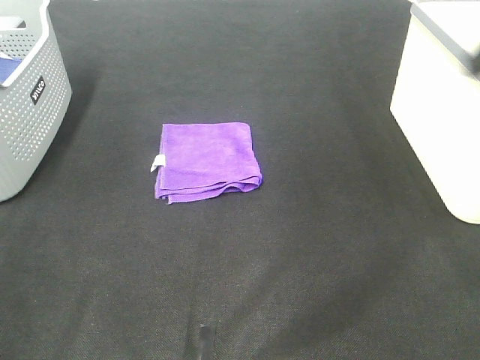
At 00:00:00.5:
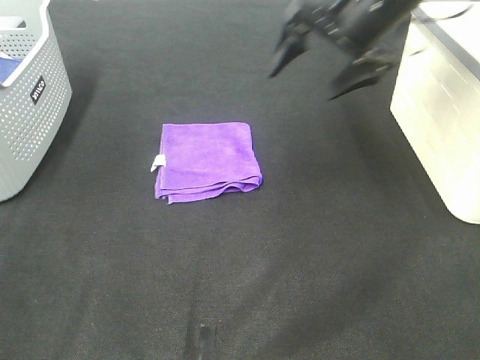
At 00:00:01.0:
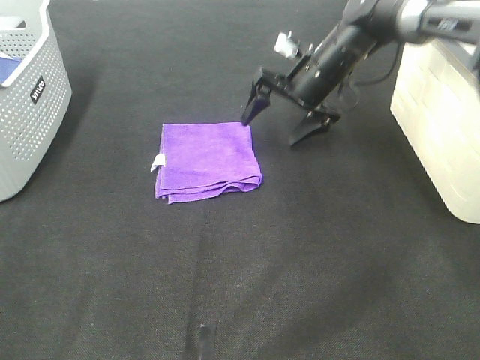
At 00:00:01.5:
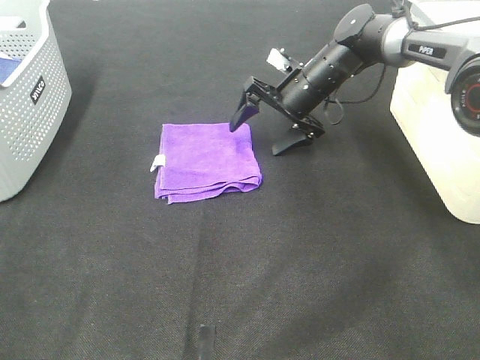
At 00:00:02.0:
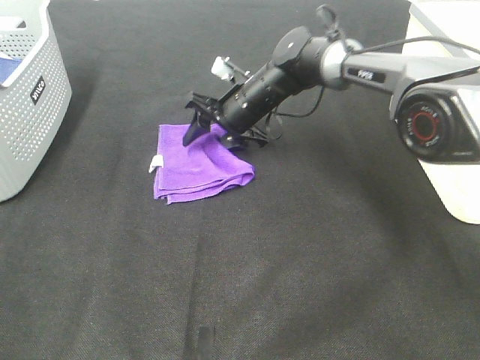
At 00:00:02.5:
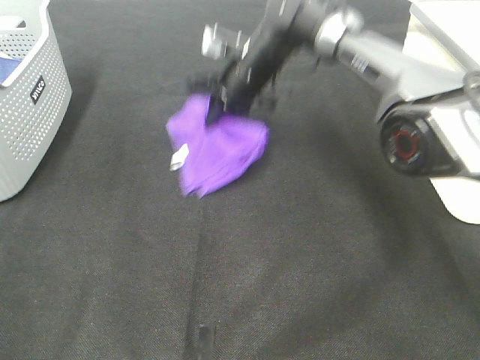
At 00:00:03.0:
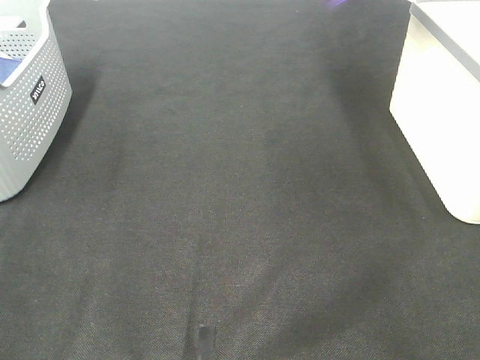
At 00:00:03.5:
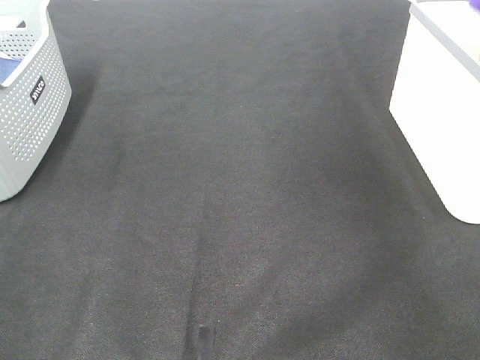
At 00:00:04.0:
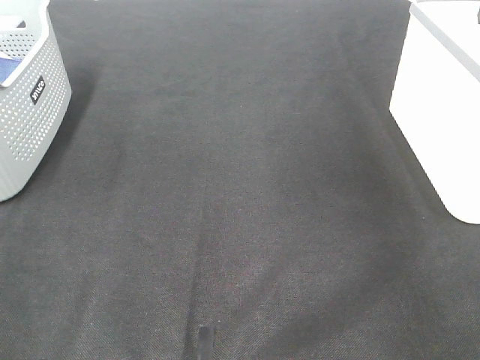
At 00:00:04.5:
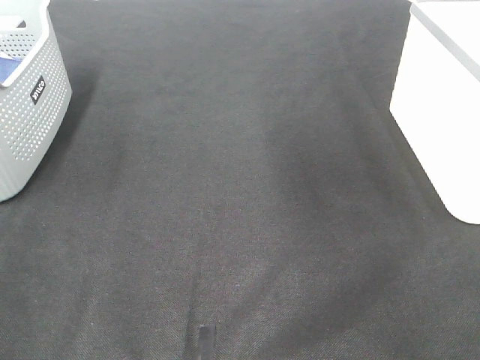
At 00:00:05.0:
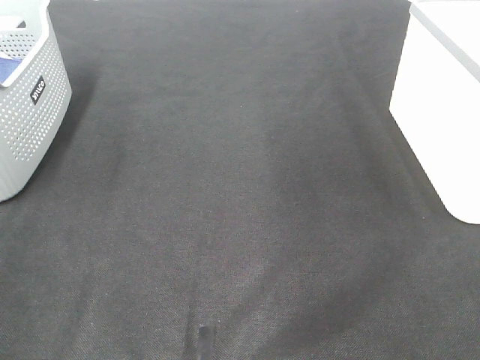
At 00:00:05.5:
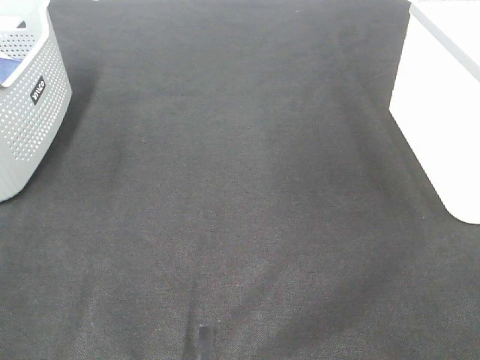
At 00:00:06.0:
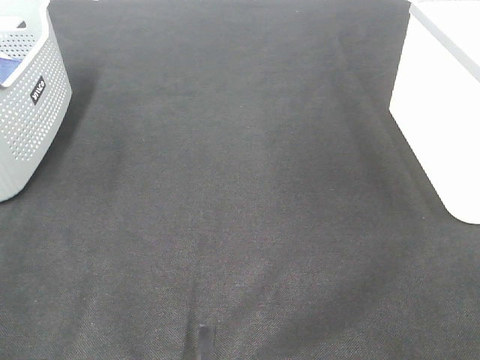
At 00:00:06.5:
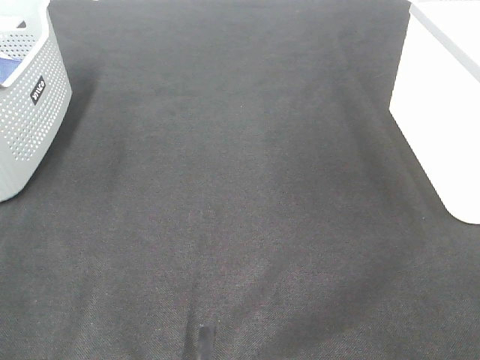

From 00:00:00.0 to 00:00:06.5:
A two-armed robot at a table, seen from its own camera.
Step, from 00:00:00.0 to 00:00:02.0: Right hand: grab the folded purple towel.
Step, from 00:00:02.5 to 00:00:03.5: Right hand: place the purple towel in right basket.
From 00:00:00.0 to 00:00:02.0: The right gripper is displaced downward, to the left and forward by approximately 40 cm, and closes up.
From 00:00:02.0 to 00:00:04.5: The right gripper heads upward and to the right, covering about 40 cm, and opens up.

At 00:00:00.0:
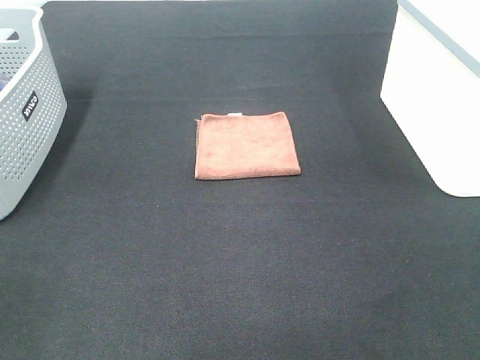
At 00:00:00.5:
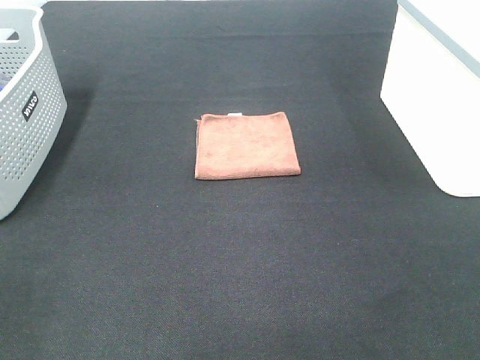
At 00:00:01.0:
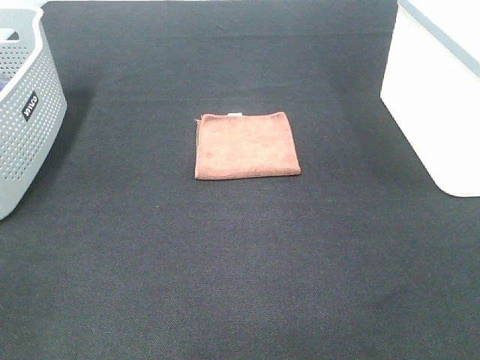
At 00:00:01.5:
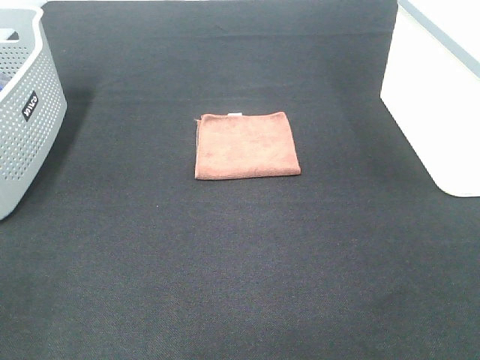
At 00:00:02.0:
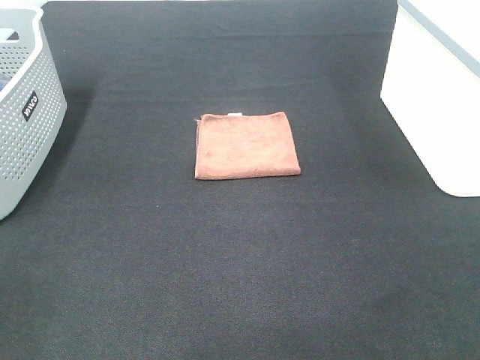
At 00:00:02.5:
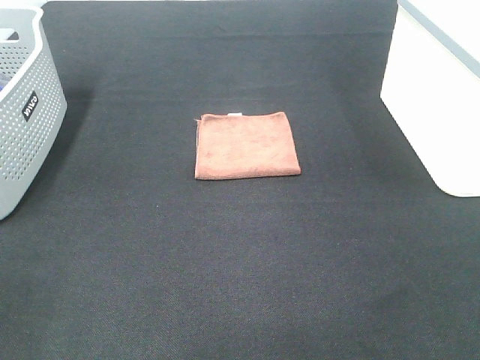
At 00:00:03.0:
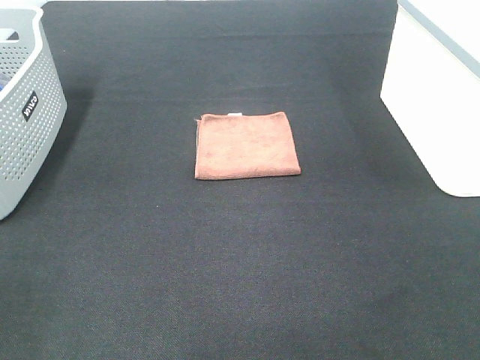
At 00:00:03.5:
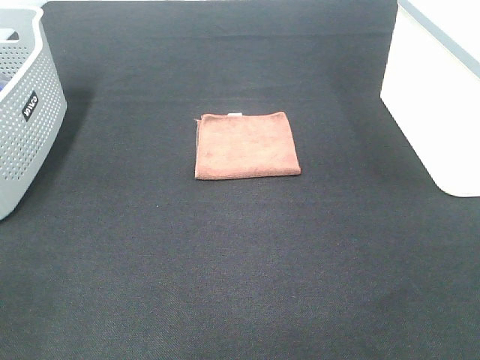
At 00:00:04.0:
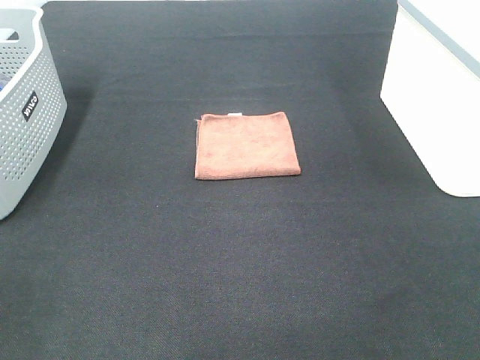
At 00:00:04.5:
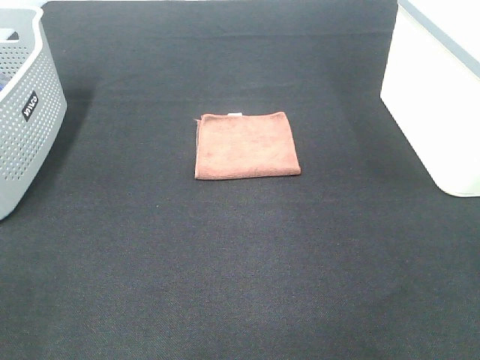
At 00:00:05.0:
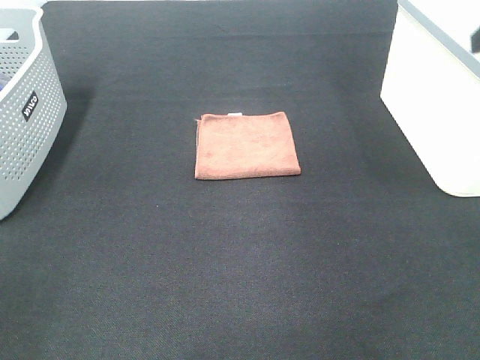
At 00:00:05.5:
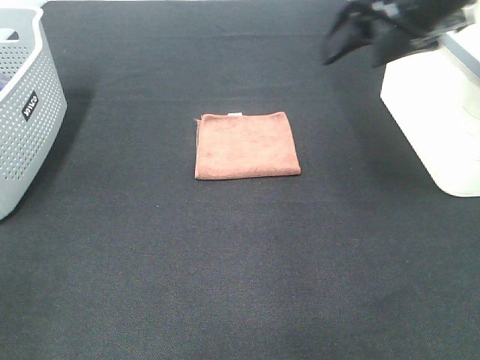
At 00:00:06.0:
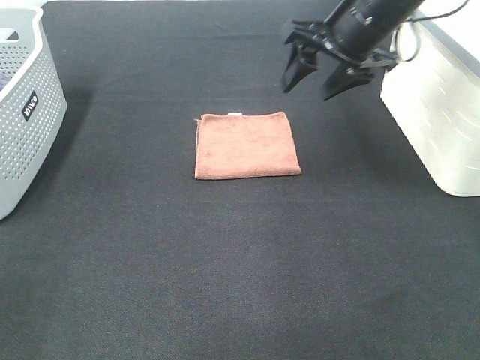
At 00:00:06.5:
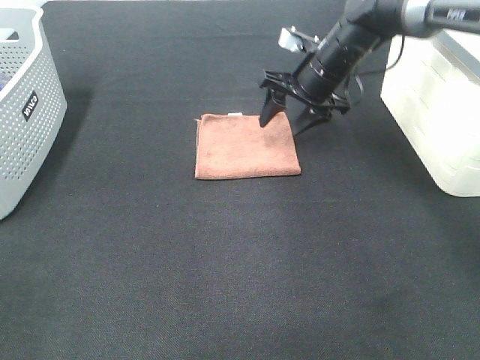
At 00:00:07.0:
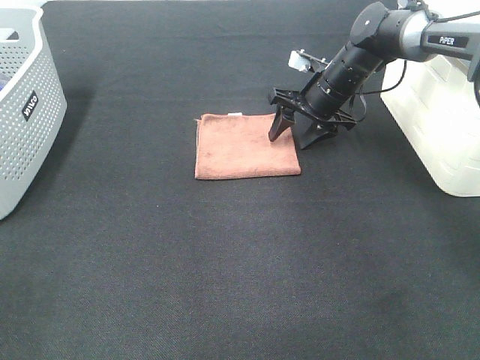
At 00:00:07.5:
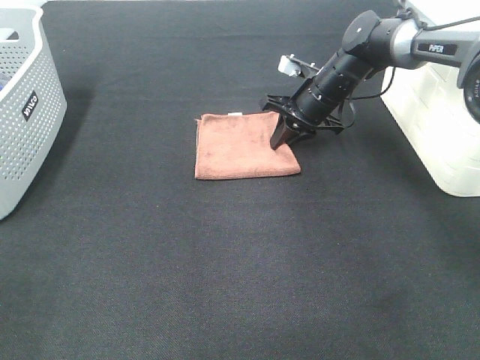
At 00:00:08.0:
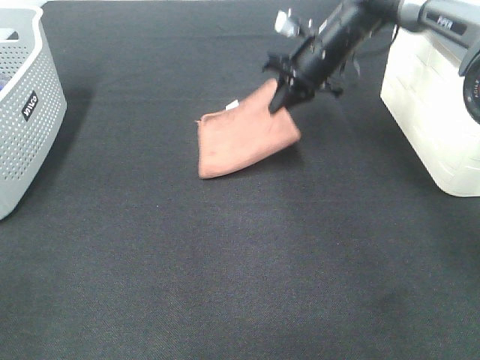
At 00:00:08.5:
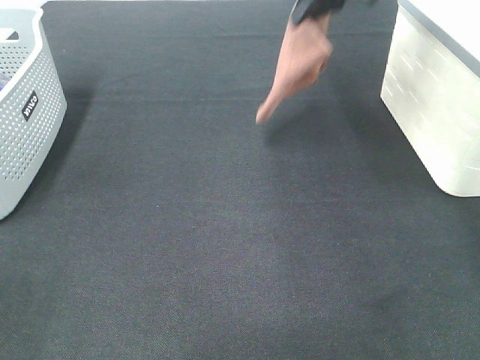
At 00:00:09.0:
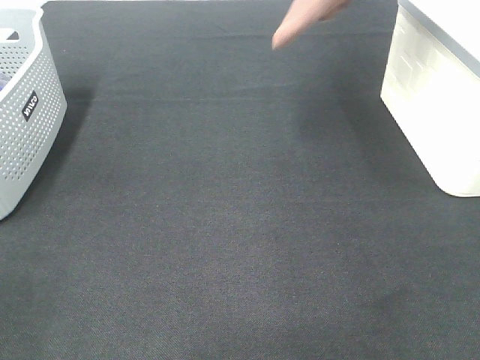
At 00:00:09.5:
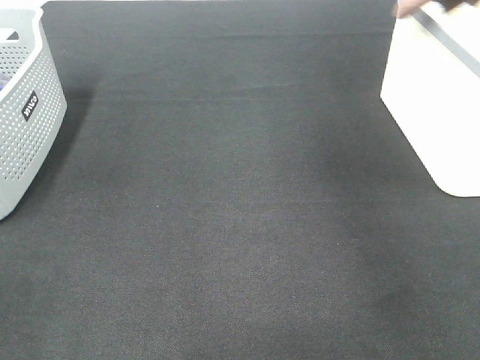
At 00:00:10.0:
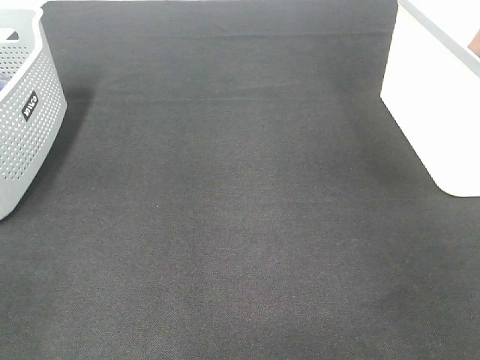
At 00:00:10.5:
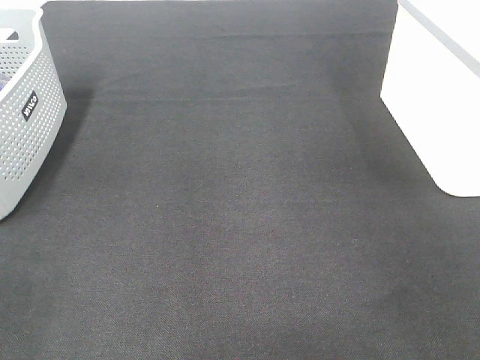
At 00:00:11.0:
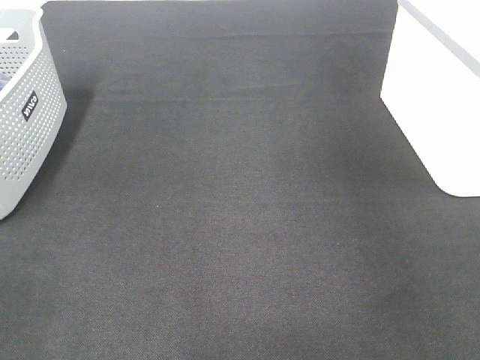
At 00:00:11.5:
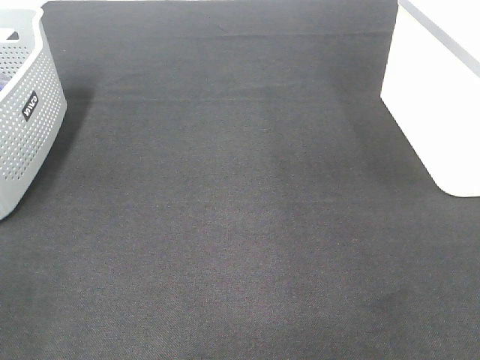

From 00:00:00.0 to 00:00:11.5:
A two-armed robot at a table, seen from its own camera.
Step, from 00:00:00.0 to 00:00:07.5: Right hand: grab the folded brown towel.
Step, from 00:00:08.0 to 00:00:10.5: Right hand: place the brown towel in right basket.
From 00:00:00.0 to 00:00:02.0: Both grippers stay put.
From 00:00:04.0 to 00:00:06.0: The right gripper shifts roughly 40 cm forward.
From 00:00:06.0 to 00:00:07.5: The right gripper goes some 15 cm downward and forward, and closes.
From 00:00:07.5 to 00:00:09.5: The right gripper travels upward and to the right by about 40 cm.

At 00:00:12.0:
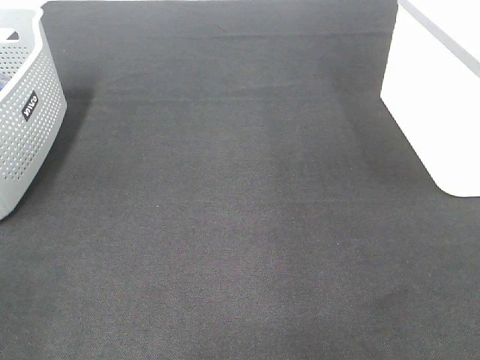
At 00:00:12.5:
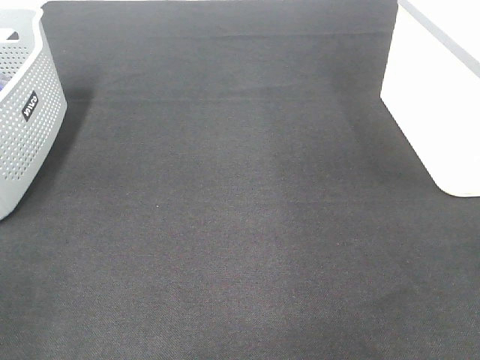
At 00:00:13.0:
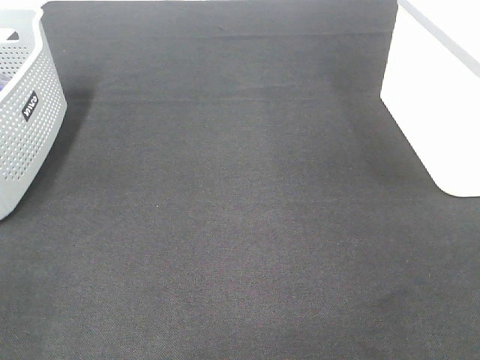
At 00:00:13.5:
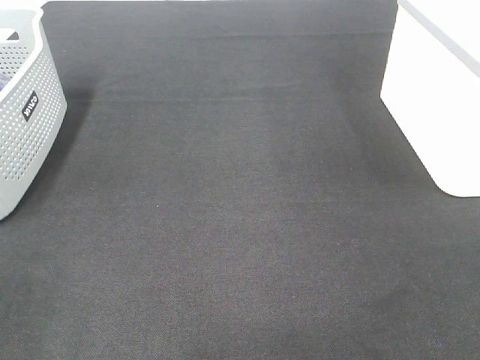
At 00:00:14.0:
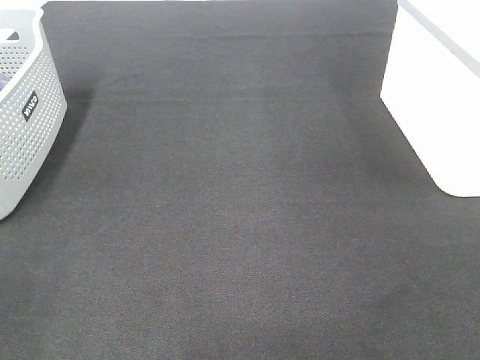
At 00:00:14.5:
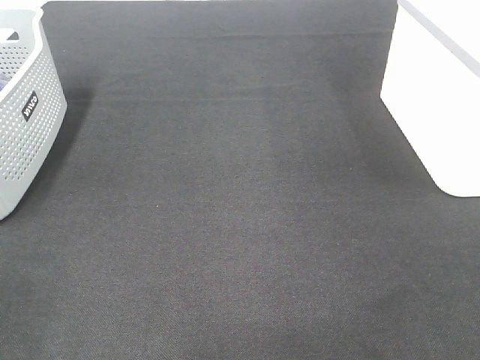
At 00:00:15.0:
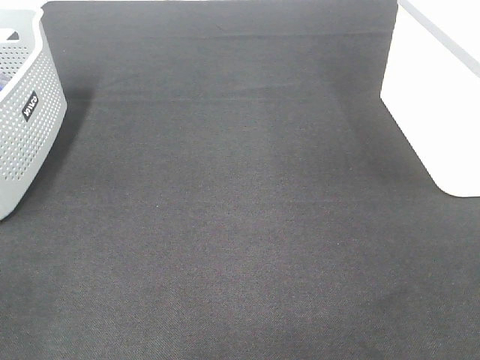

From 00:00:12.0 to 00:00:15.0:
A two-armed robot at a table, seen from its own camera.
From 00:00:13.5 to 00:00:15.0: Both grippers stay put.
